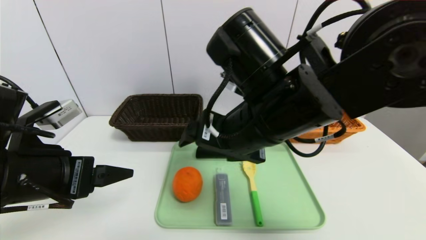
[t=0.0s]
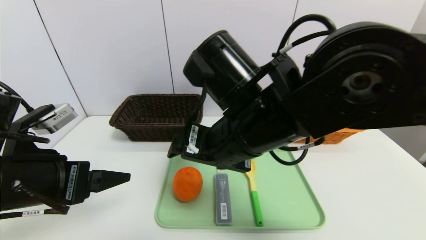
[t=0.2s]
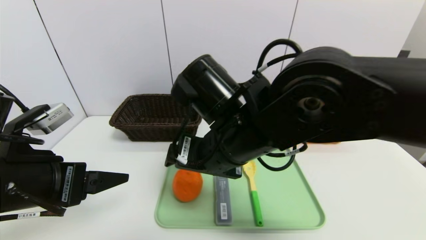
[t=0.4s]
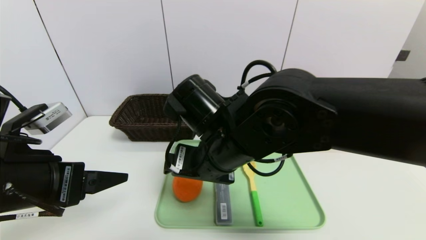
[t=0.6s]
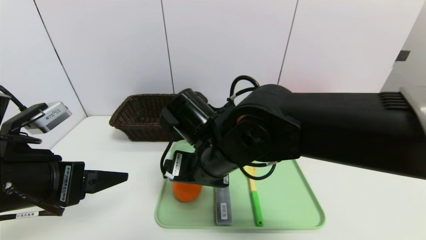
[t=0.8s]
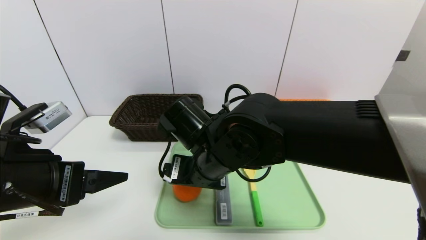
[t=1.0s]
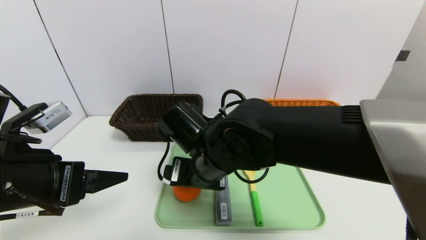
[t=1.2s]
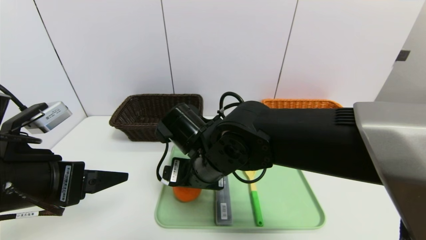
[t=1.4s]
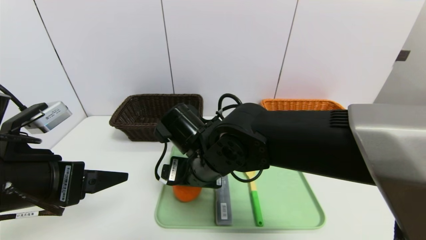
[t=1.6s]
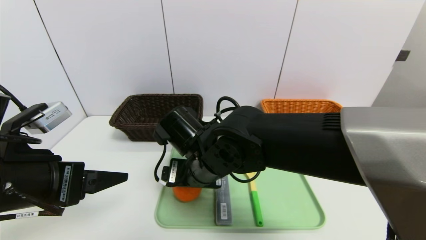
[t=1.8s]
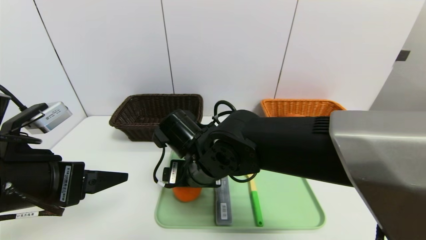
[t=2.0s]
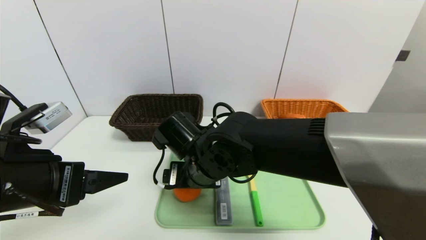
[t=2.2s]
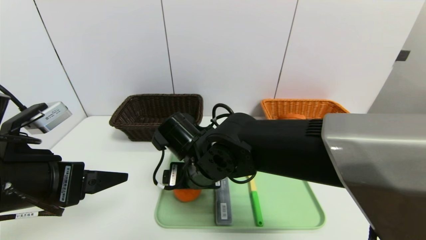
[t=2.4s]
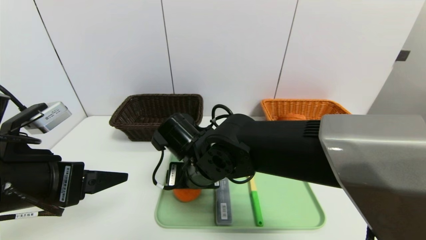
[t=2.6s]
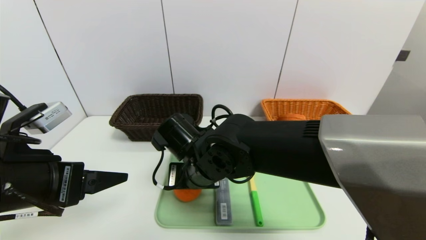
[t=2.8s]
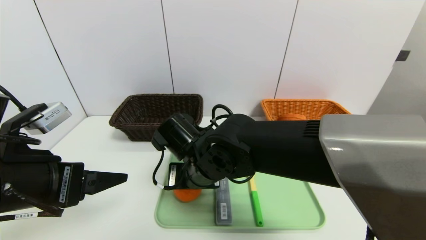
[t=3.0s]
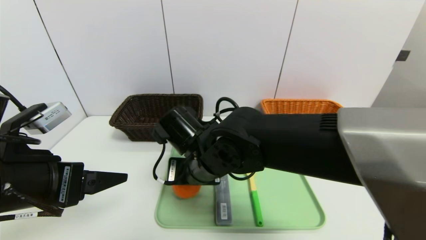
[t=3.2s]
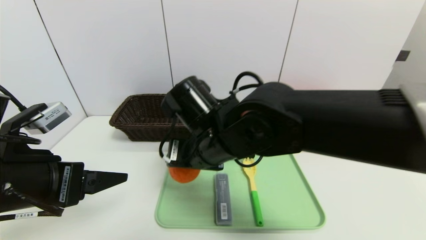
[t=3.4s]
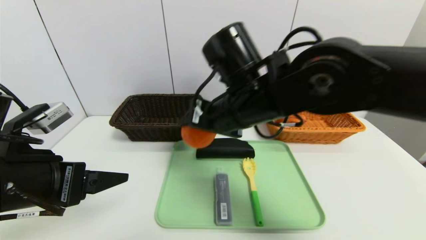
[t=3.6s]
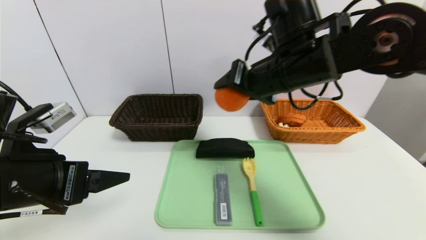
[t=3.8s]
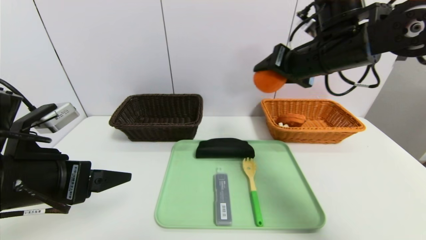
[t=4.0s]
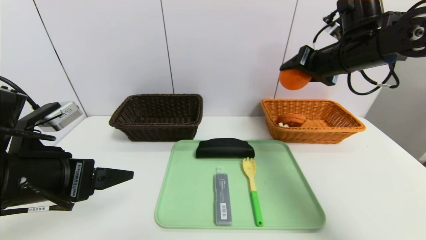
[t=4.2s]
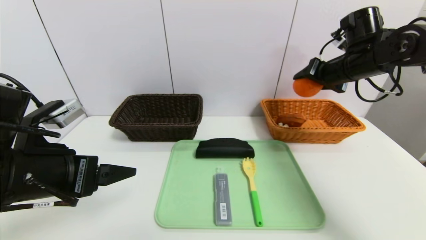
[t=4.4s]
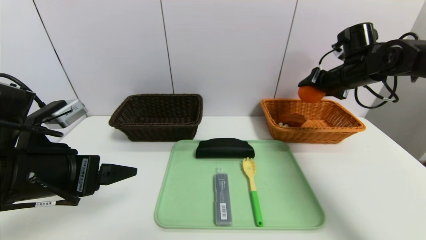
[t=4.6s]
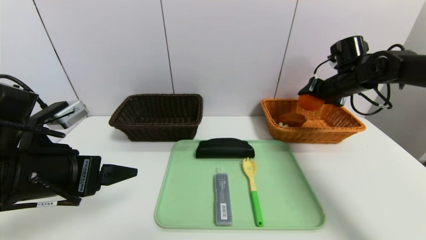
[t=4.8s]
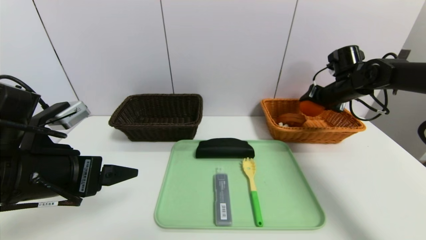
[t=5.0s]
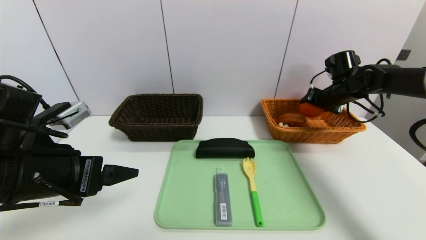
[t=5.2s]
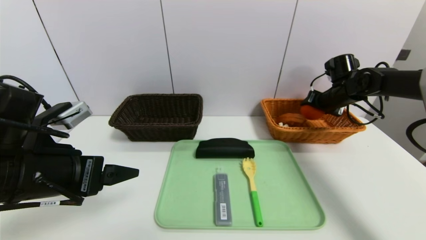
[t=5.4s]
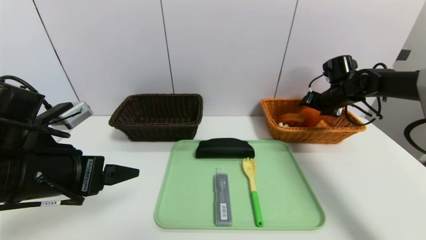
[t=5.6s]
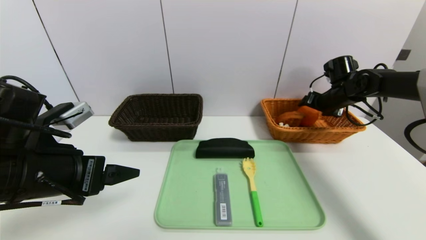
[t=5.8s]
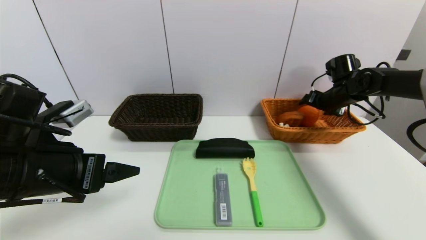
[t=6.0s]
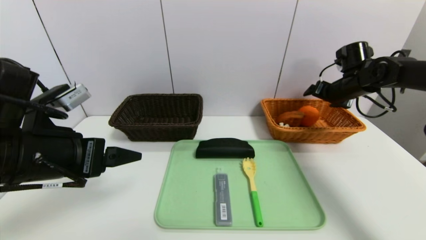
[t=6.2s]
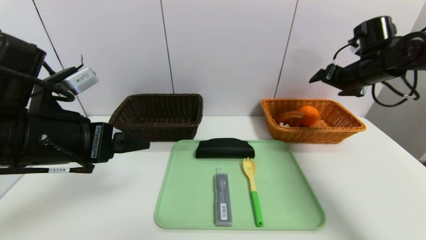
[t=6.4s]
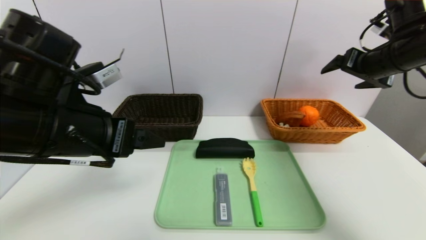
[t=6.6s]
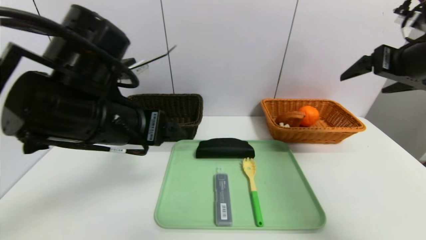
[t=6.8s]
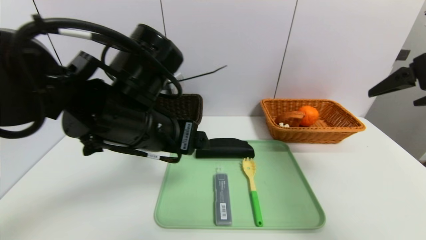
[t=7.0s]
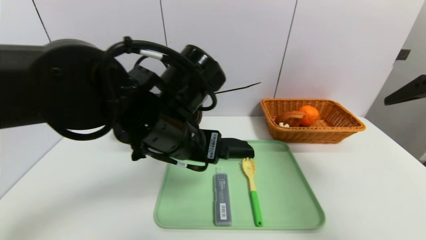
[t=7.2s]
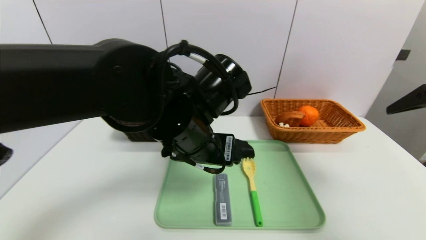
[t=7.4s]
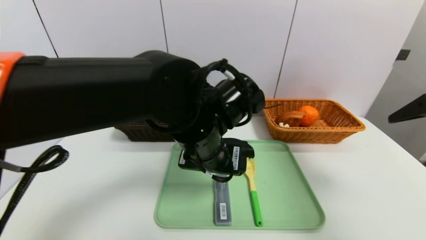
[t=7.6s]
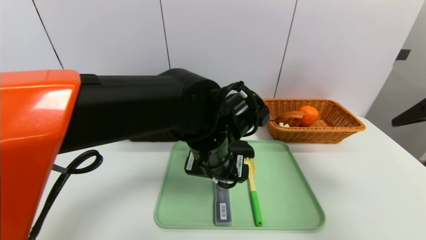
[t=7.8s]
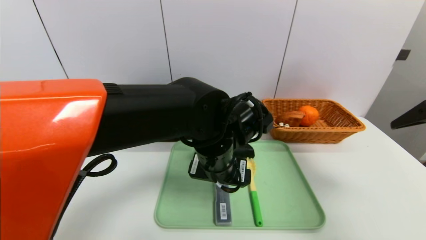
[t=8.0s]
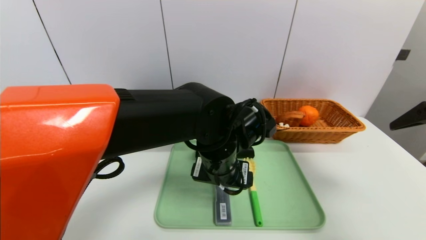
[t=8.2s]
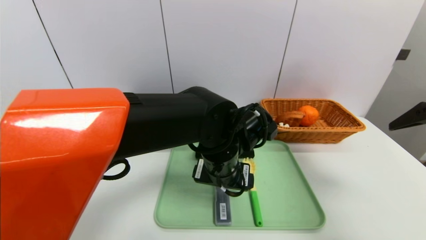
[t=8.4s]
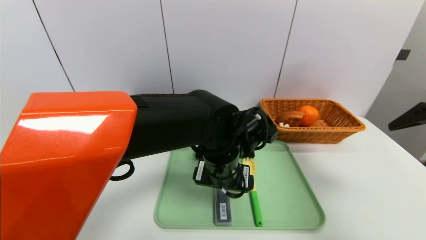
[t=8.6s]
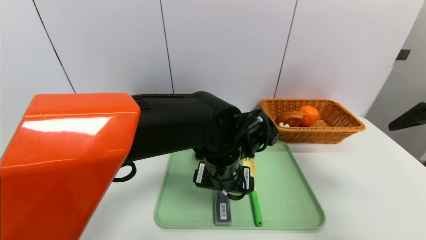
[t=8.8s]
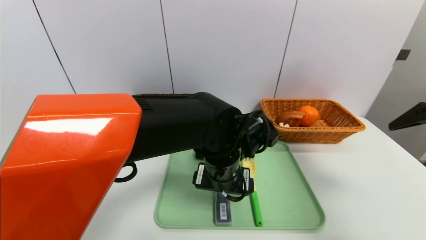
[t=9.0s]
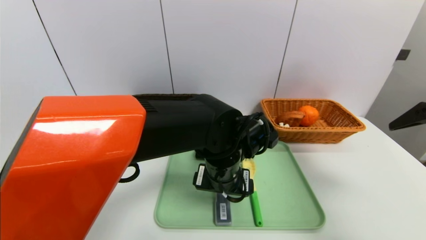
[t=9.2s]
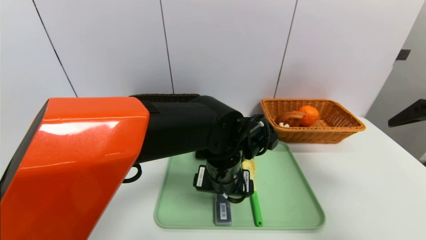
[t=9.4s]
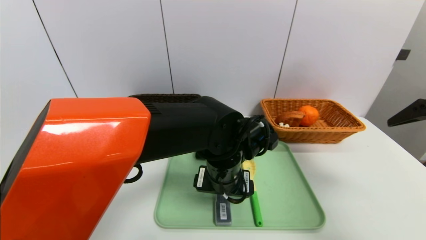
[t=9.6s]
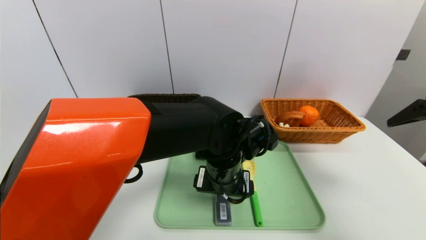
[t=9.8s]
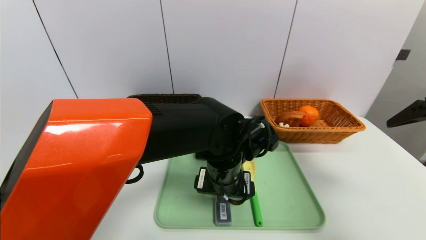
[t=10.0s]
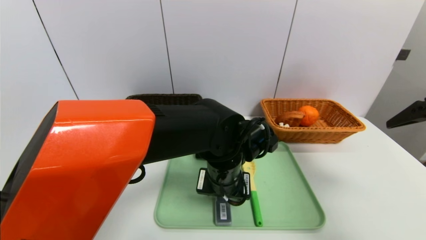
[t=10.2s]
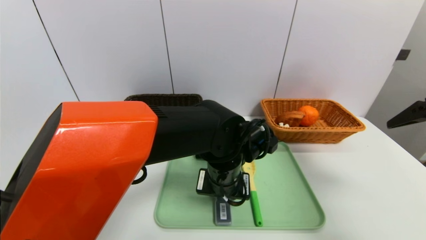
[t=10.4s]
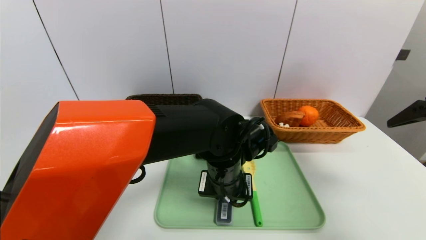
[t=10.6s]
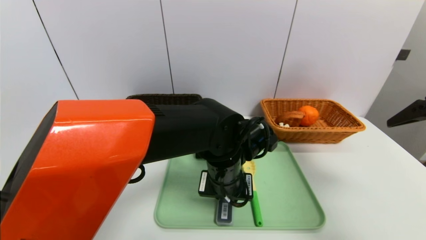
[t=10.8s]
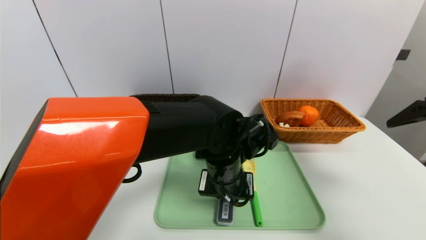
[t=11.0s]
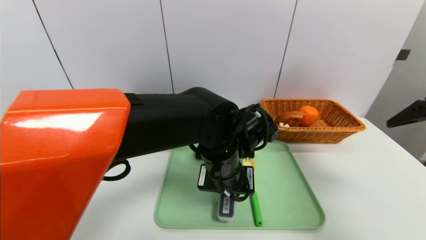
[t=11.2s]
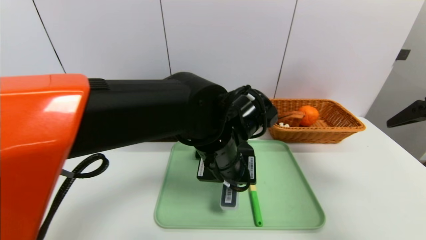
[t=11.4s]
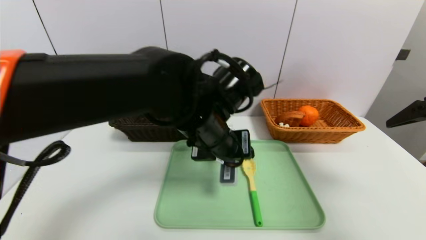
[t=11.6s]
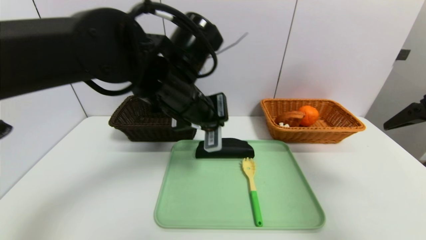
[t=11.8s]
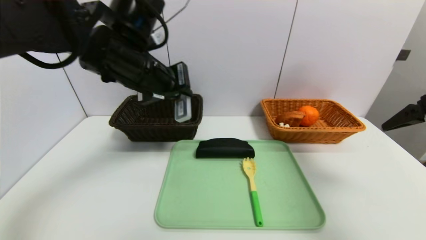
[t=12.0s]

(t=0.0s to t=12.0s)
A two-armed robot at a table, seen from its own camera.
Task of the whole recording: place the food in the right basket with the right gripper, and place the non food items in the left basket with the left gripper.
Step, t=0.0s - t=6.2s: Grasp the orange and put it in the right basket.
t=0.0s - t=1.6s: The right gripper goes approximately 15 cm downward and to the left.
t=1.6s - t=3.0s: The right gripper closes.
t=3.0s - t=4.4s: The right gripper goes approximately 35 cm to the right, forward and upward.
t=4.4s - t=6.0s: The right gripper is displaced downward, forward and to the right by roughly 15 cm, and opens.
t=6.0s - t=7.6s: The right gripper goes approximately 30 cm backward and upward. Meanwhile the left gripper moves to the right, roughly 20 cm.
t=7.6s - t=9.0s: The left gripper goes some 5 cm downward.
t=9.0s - t=10.4s: The left gripper closes its fingers.
t=10.4s - t=12.0s: The left gripper is displaced upward and to the left by some 20 cm.

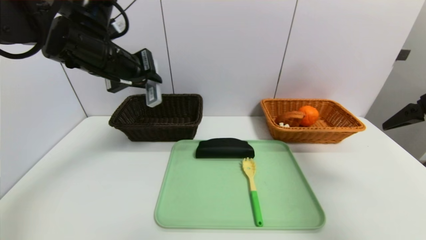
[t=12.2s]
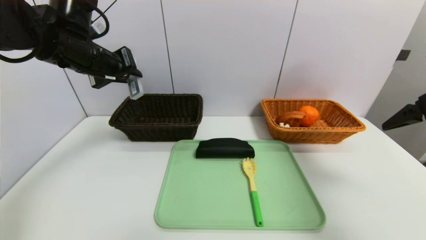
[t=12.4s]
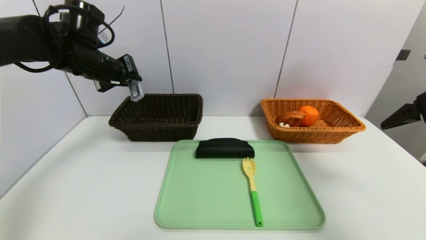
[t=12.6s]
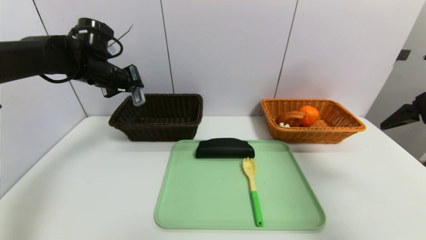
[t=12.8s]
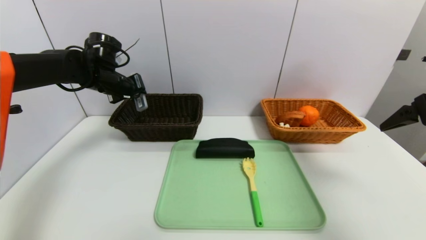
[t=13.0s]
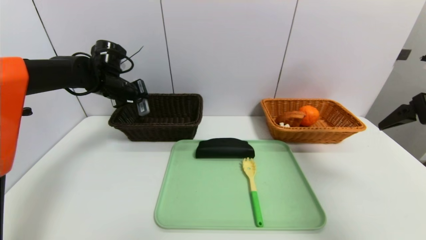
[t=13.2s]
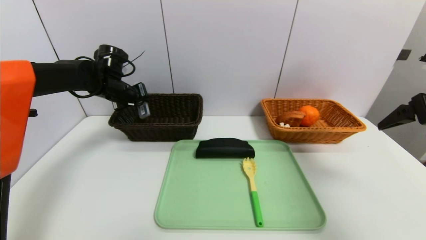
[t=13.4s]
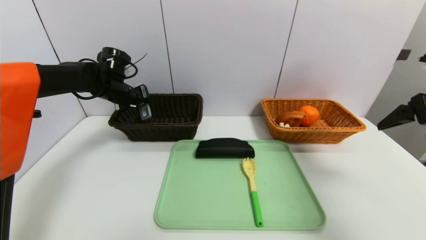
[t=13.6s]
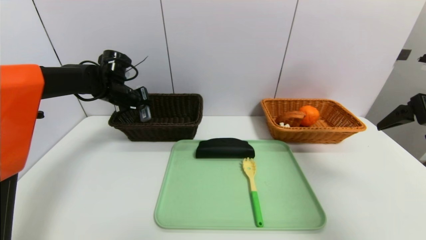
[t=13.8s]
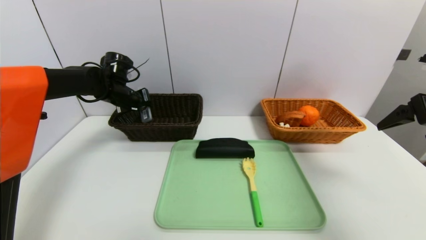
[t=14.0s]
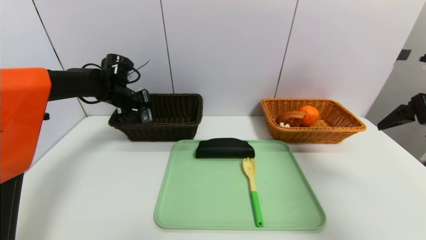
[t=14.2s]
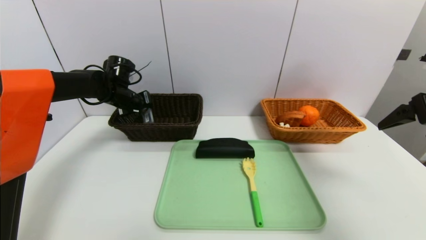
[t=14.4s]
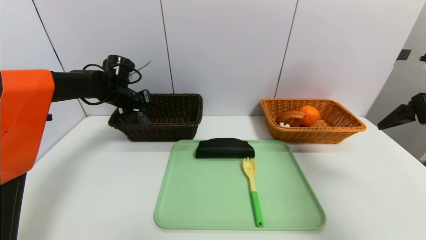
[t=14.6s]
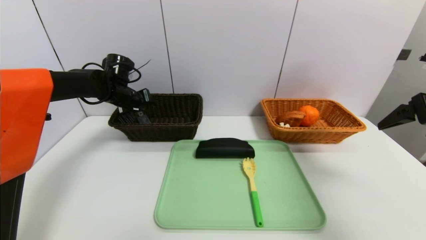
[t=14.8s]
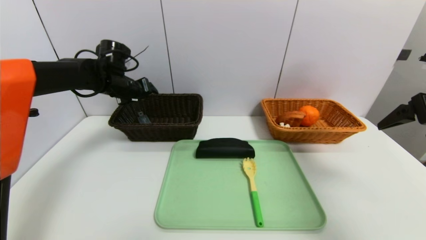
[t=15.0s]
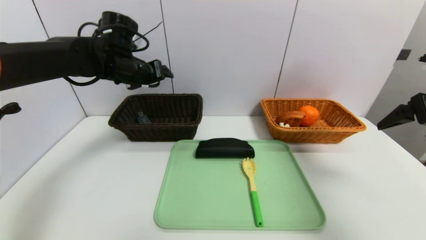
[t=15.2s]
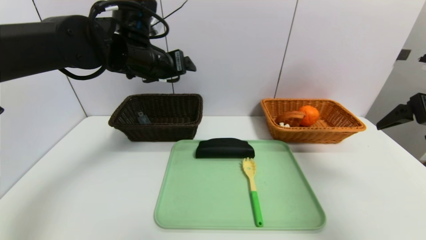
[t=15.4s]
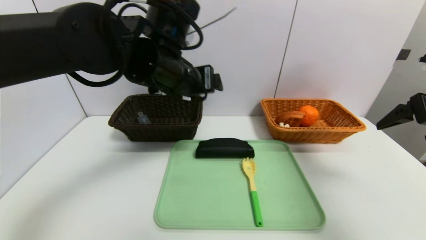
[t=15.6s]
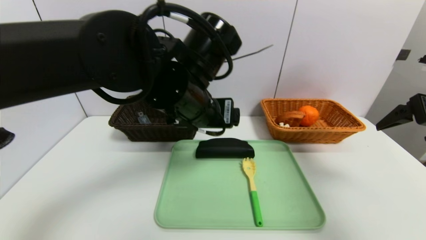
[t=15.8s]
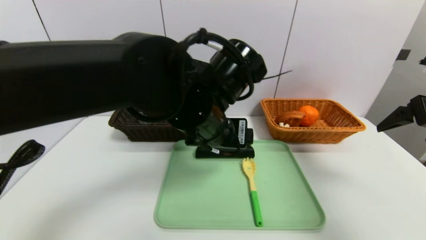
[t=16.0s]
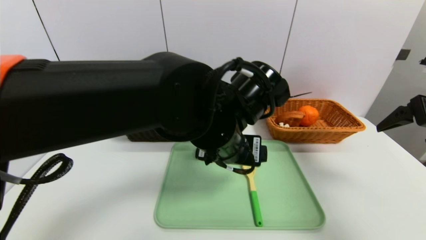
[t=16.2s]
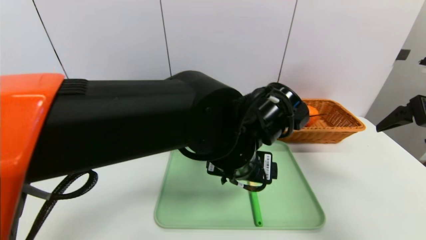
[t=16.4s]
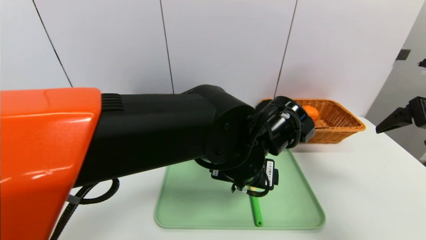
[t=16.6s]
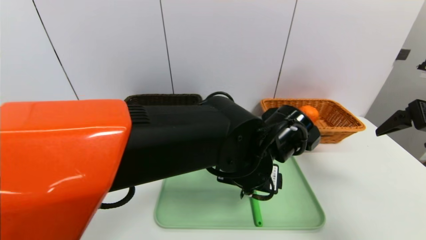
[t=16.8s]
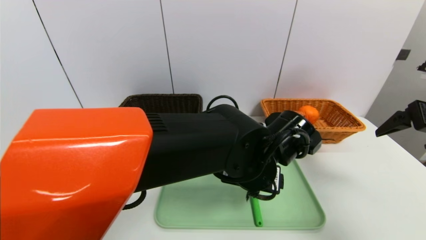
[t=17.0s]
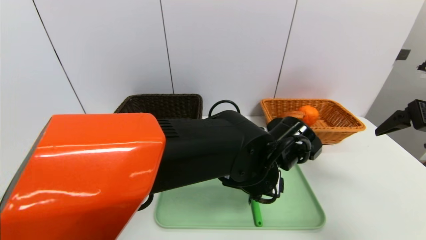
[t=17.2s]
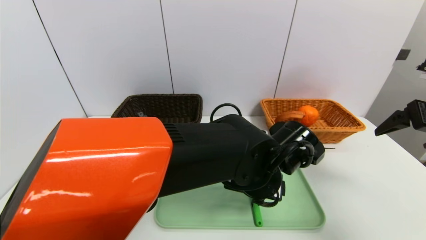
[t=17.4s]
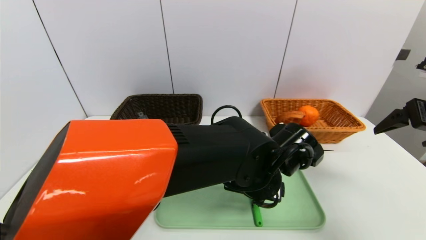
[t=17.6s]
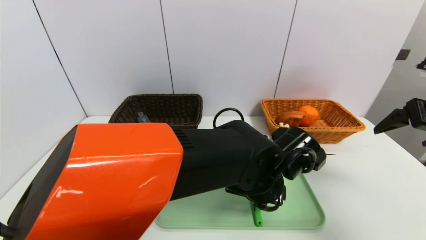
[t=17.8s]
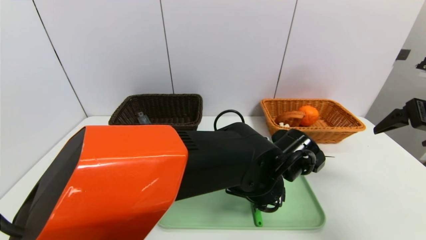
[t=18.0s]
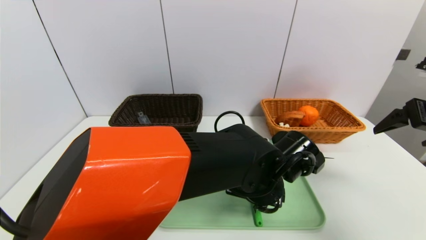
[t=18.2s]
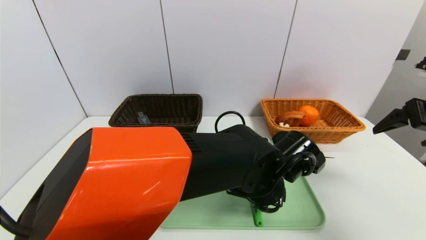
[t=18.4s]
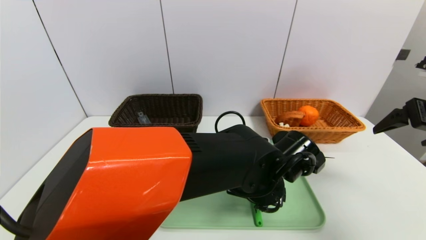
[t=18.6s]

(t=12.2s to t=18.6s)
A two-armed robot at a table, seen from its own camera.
Task of the whole recording: place the food in the right basket with the right gripper, and place the non food items in the left basket with the left gripper.
Step, t=12.2s - t=14.8s: Grasp the compass and put it in the left basket.
t=12.2s - t=13.8s: The left gripper is displaced forward, downward and to the left by about 20 cm.
t=13.8s - t=15.4s: The left gripper heads to the right, upward and backward, covering about 20 cm, and opens its fingers.
t=15.4s - t=17.0s: The left gripper travels to the right, downward and backward by roughly 25 cm.
